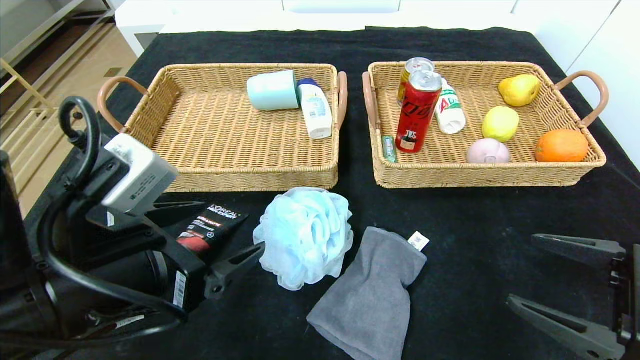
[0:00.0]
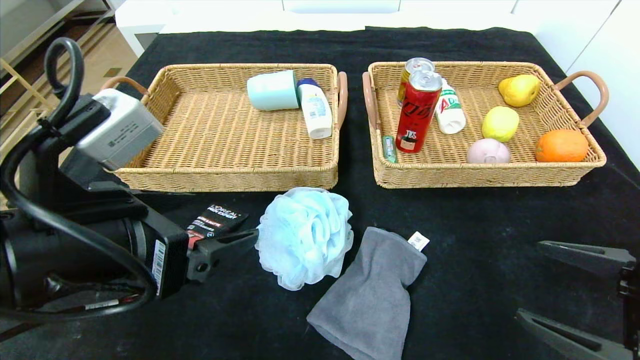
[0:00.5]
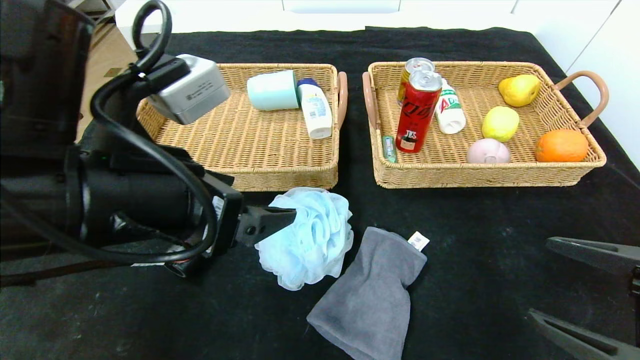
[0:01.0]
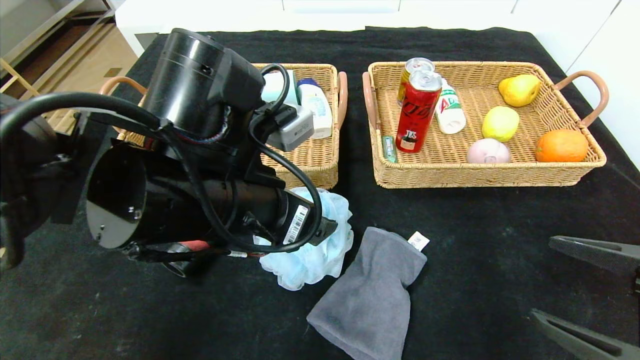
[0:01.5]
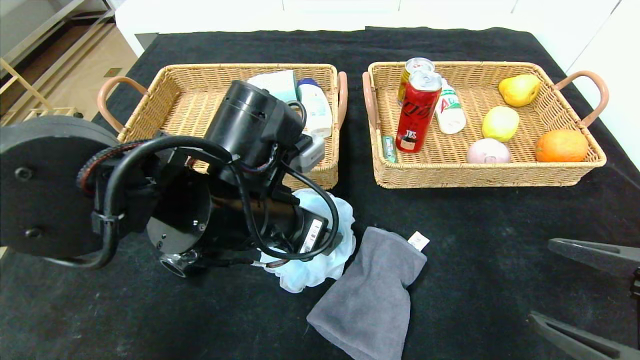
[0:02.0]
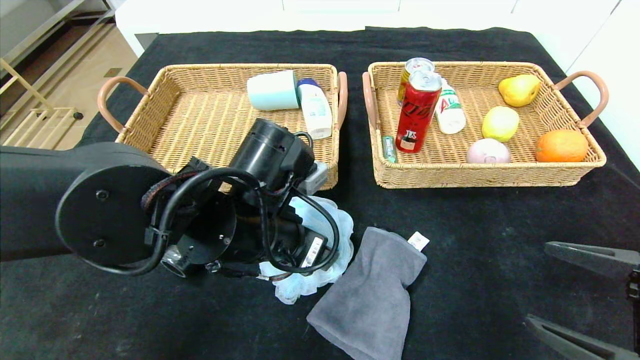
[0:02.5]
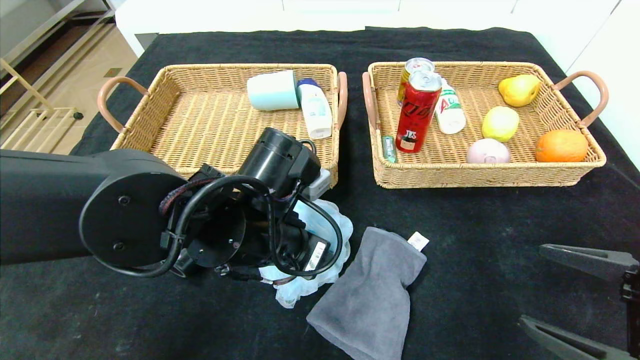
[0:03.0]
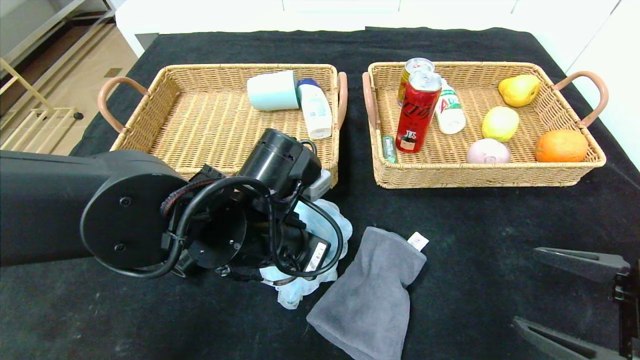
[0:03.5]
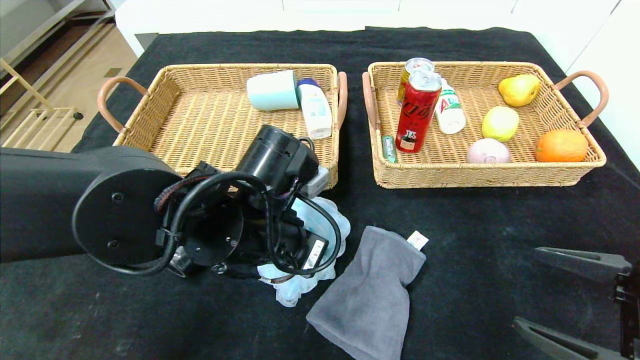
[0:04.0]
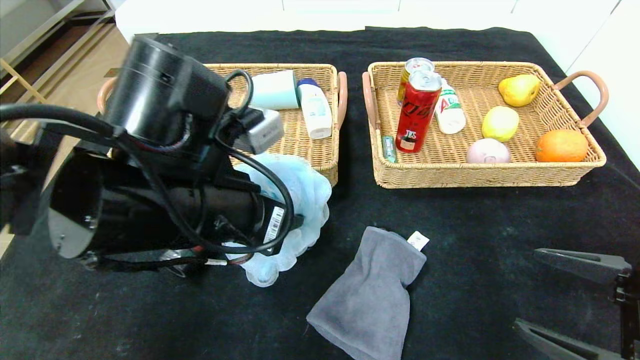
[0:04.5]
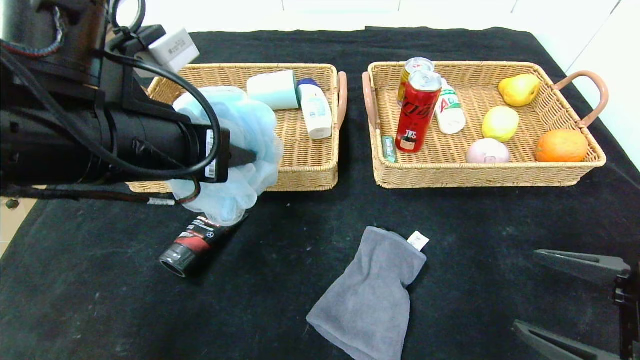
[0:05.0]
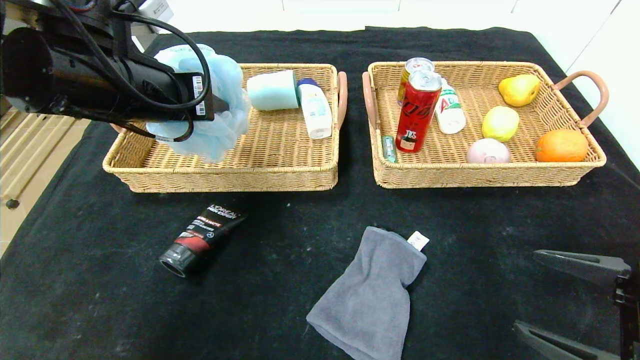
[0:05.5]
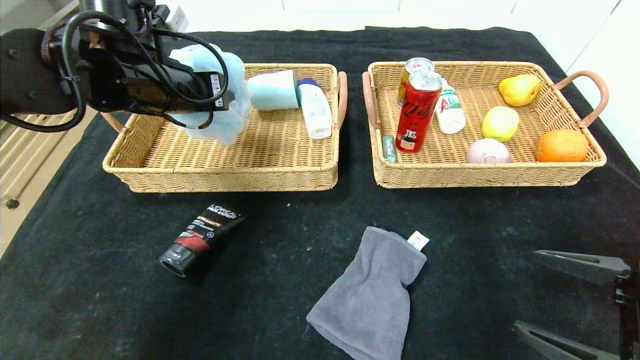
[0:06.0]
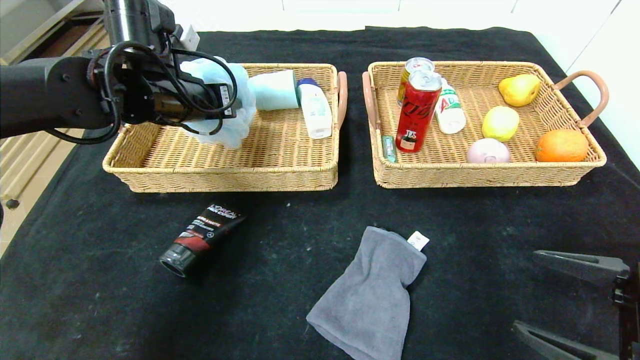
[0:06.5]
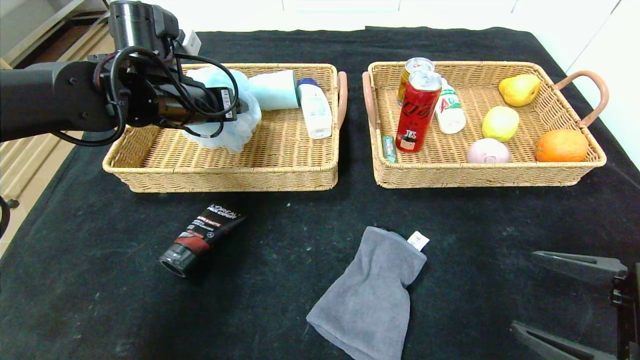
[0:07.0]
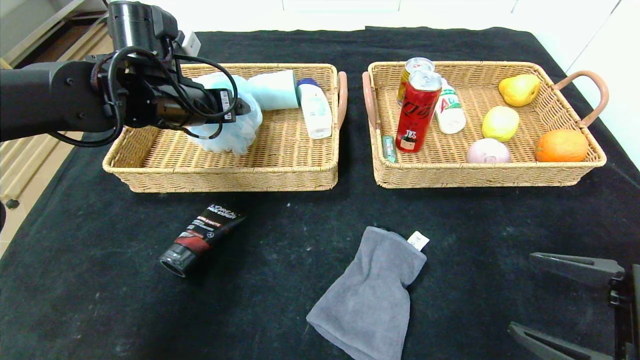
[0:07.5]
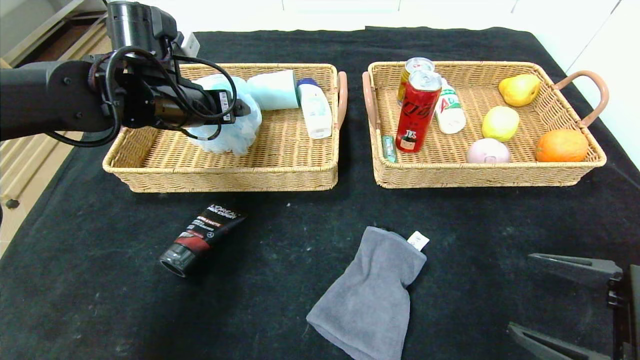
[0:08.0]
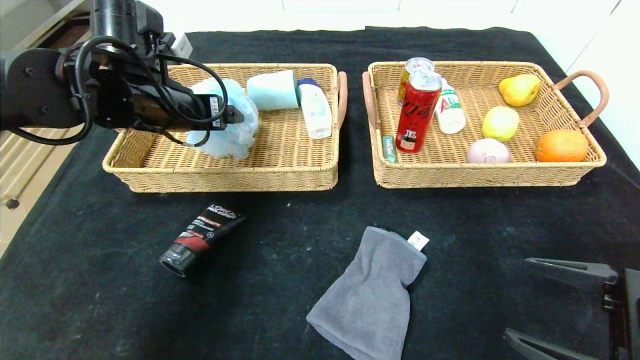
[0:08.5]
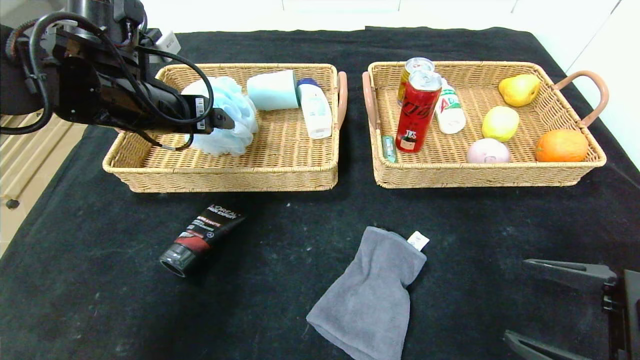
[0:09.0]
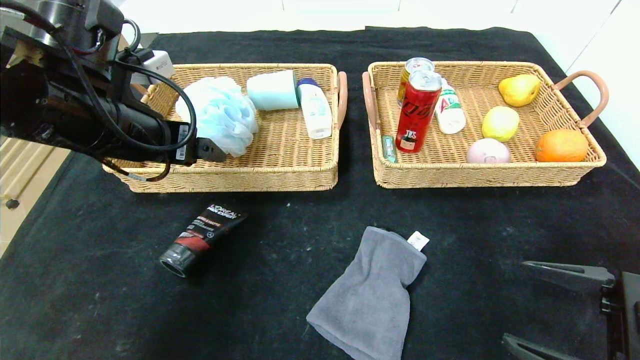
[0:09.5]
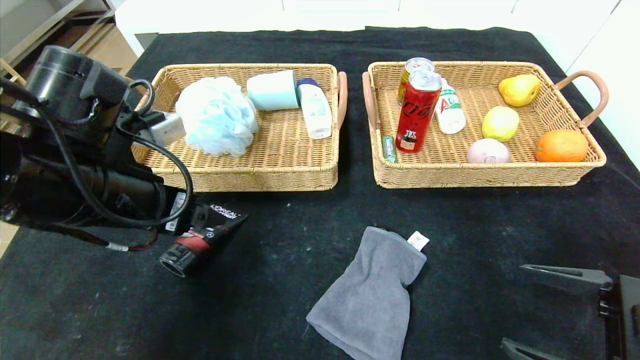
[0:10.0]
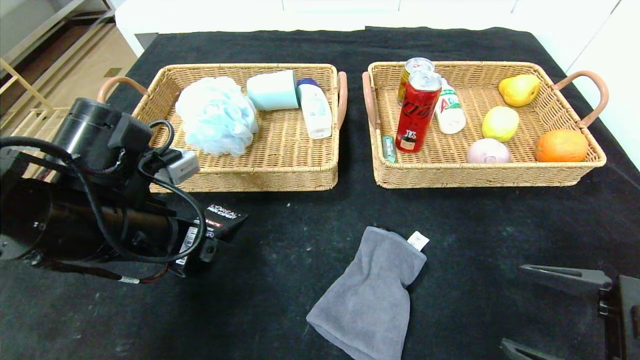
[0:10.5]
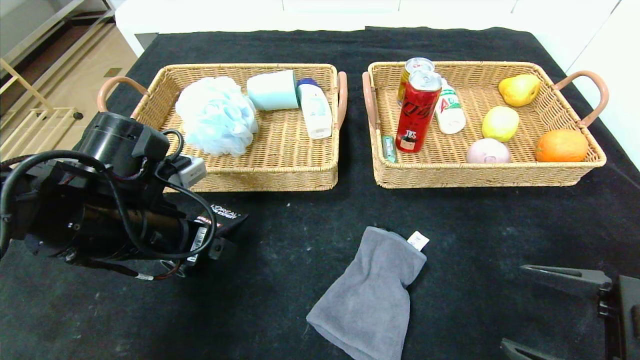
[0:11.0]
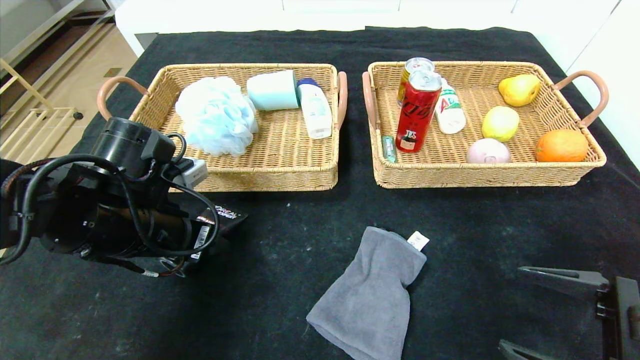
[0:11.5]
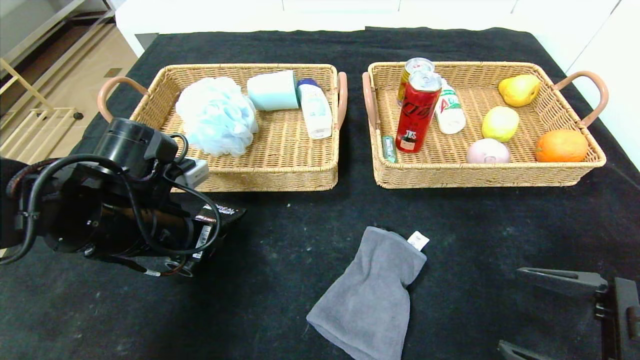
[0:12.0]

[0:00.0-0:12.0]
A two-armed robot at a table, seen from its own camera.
Step, 0:00.0 to 0:08.5: Grasp the bath ball and put it in the left basket.
0:00.0 to 0:02.0: The left gripper goes some 15 cm to the right and forward.
0:02.0 to 0:04.0: The left gripper closes.
0:04.0 to 0:06.0: The left gripper travels to the left, upward and forward by about 20 cm.
0:06.0 to 0:08.0: The left gripper opens up.
0:08.0 to 0:10.0: The left gripper is displaced backward by about 15 cm.
0:10.0 to 0:12.0: The left gripper is displaced downward by approximately 5 cm, and closes.

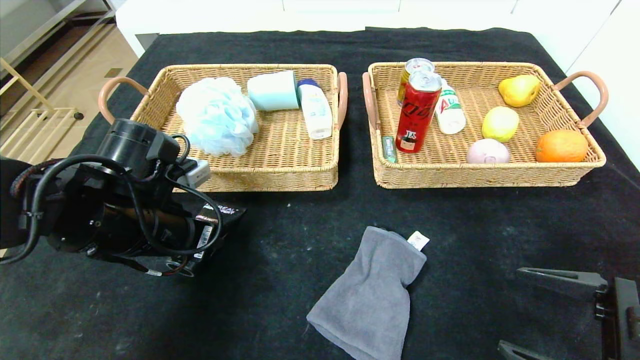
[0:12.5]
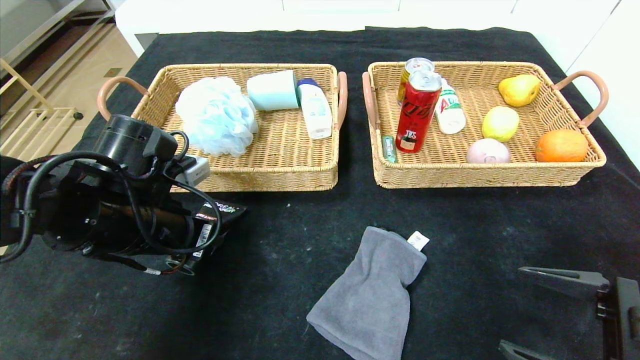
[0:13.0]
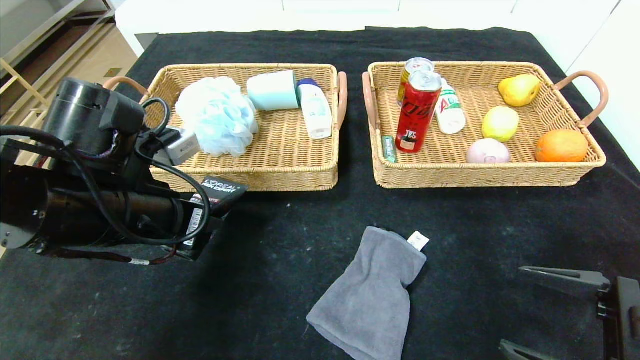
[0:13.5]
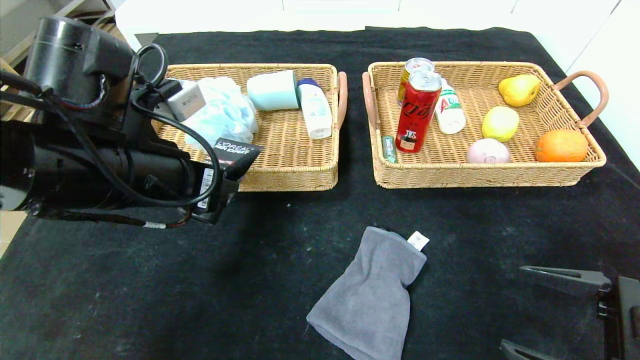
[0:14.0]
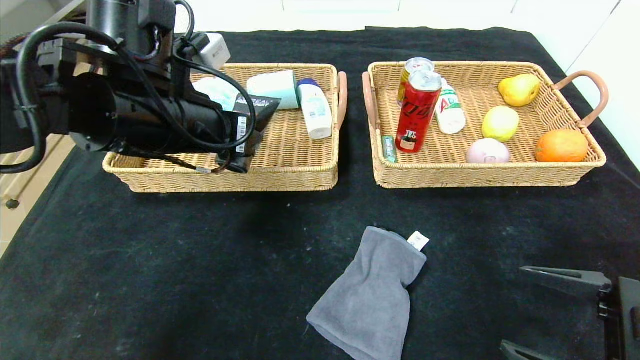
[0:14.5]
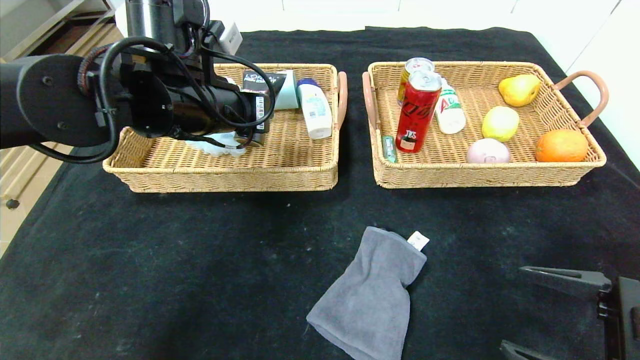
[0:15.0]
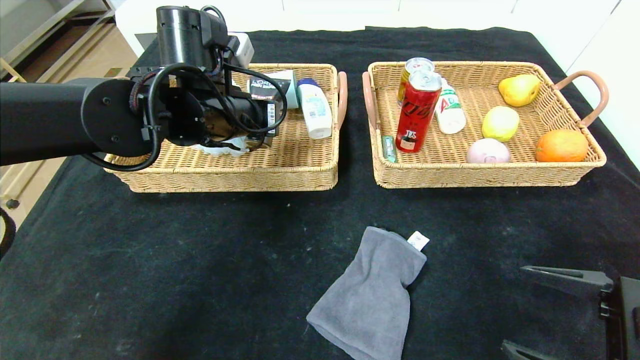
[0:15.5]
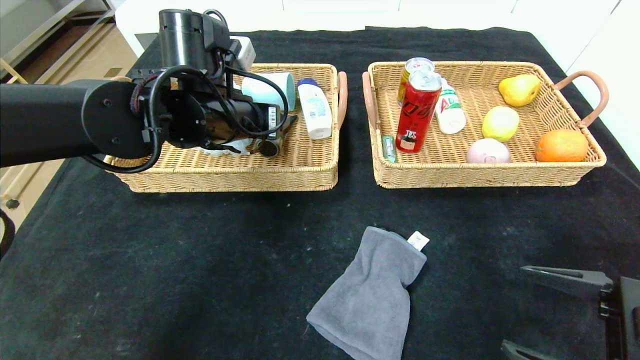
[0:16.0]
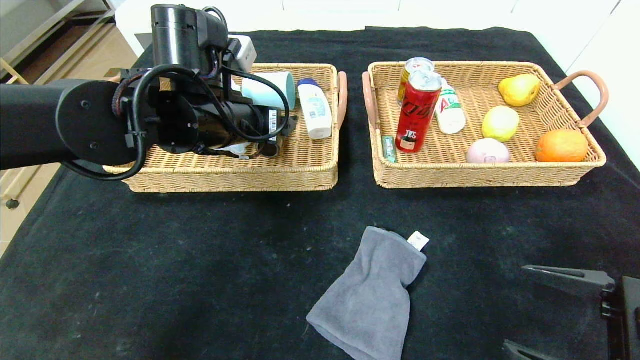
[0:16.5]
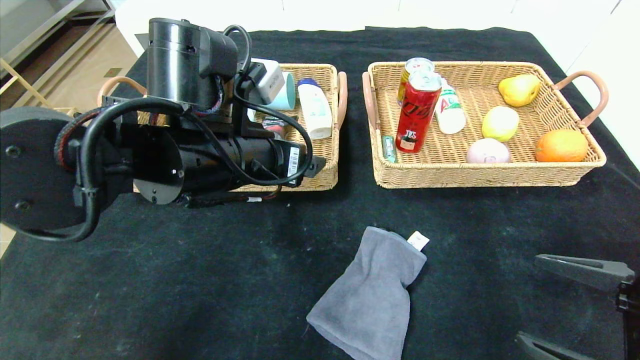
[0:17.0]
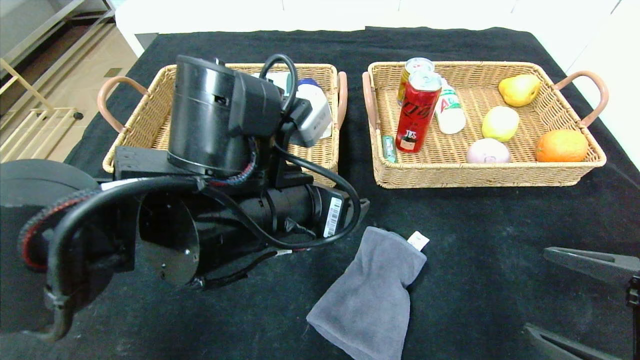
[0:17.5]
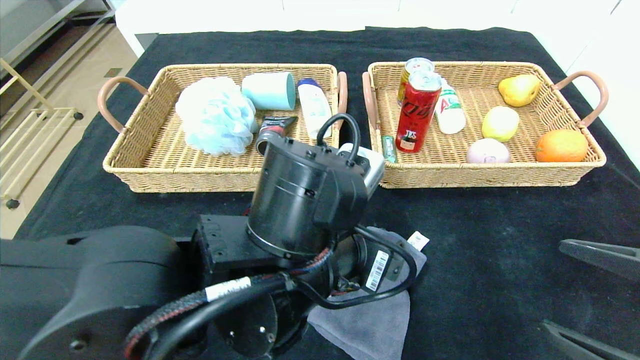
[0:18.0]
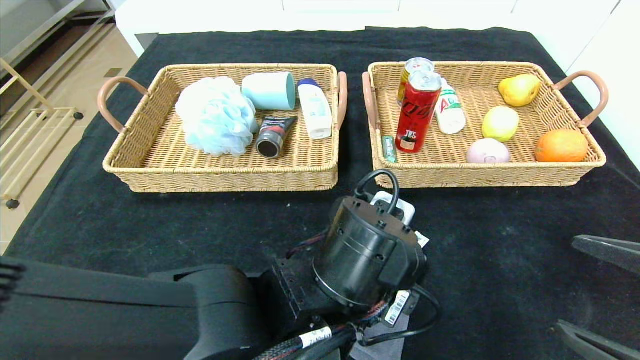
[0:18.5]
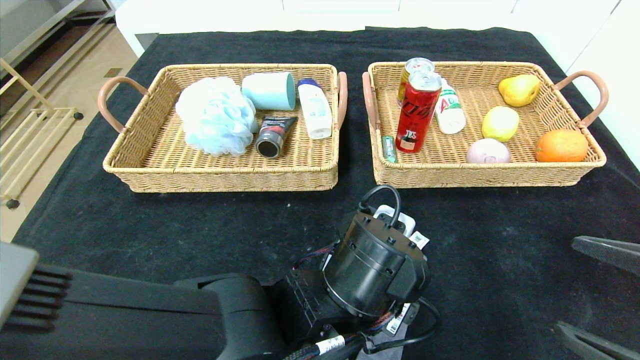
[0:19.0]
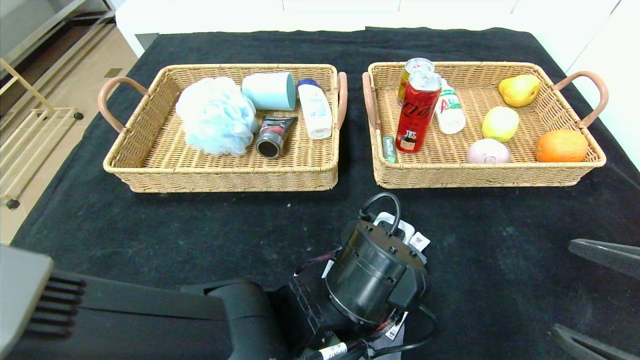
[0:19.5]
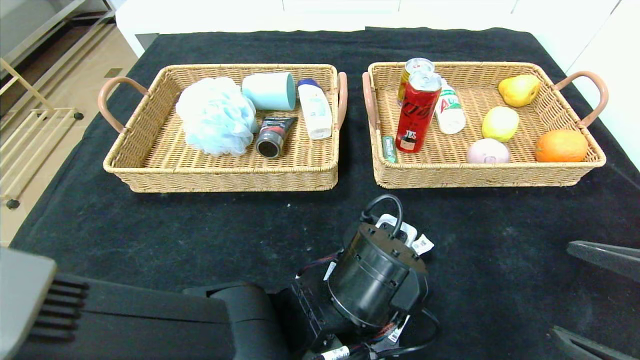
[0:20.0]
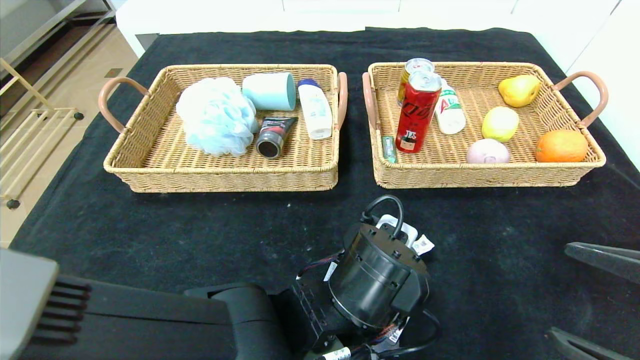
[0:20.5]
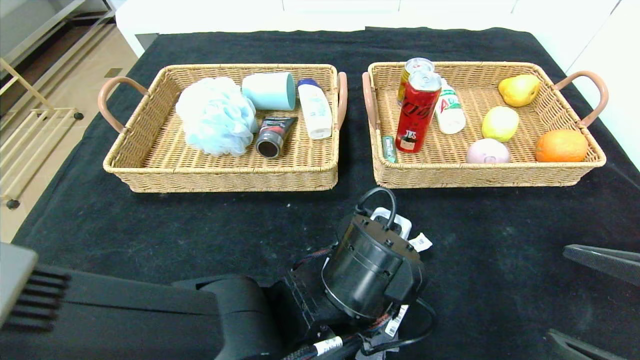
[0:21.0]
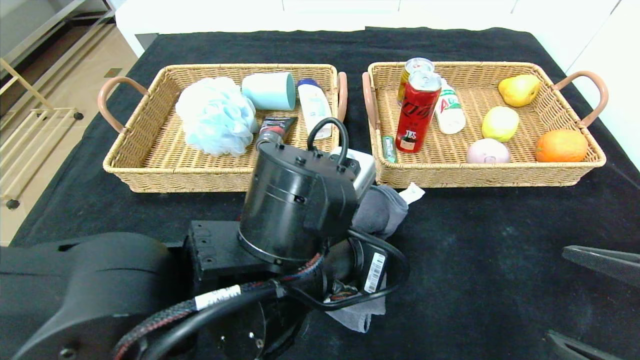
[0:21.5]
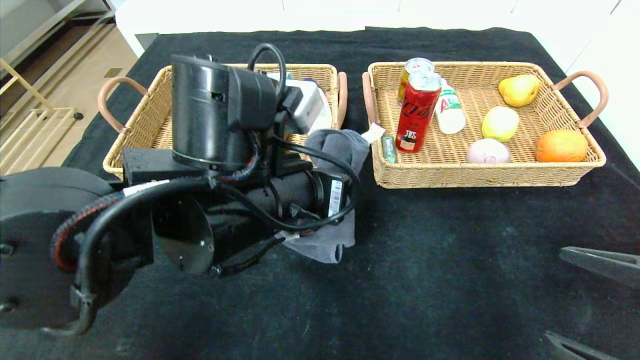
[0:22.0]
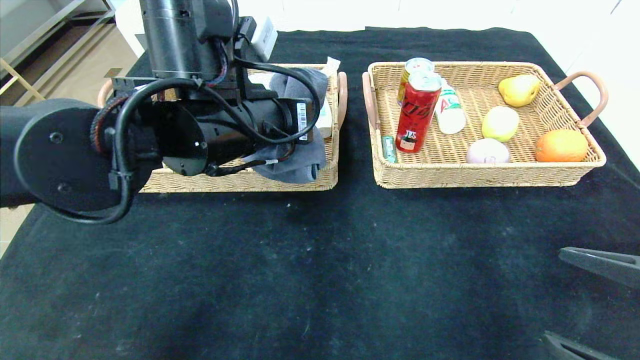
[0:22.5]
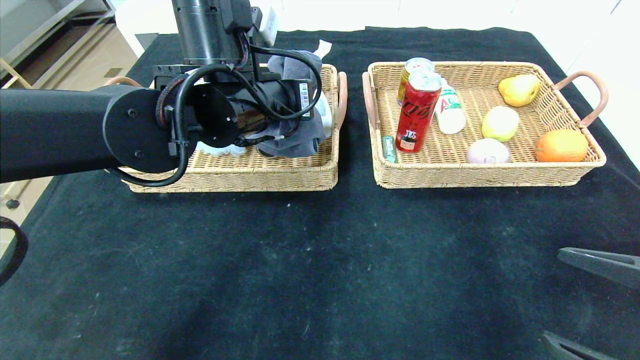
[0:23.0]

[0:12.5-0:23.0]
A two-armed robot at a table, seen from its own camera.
Step, 0:12.5 to 0:16.0: Grasp the soft cleanser and put it in the left basket.
0:12.5 to 0:14.5: The left gripper goes roughly 10 cm upward.
0:14.5 to 0:16.5: The left gripper shifts by about 5 cm, and opens up.
0:16.5 to 0:19.0: The left gripper is displaced to the right, backward and downward by approximately 25 cm.
0:19.0 to 0:21.0: The left gripper closes.
0:21.0 to 0:23.0: The left gripper shifts approximately 25 cm forward, upward and to the left.
